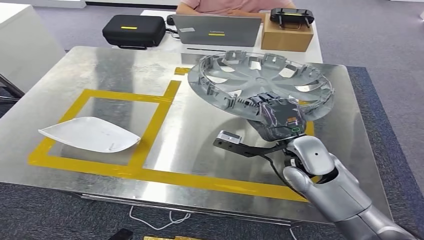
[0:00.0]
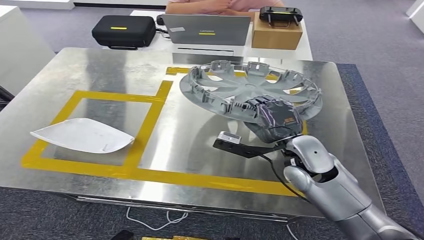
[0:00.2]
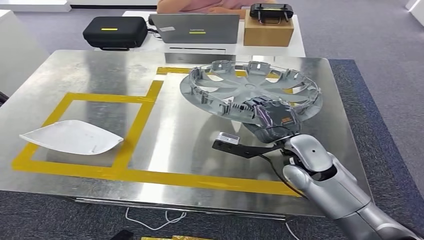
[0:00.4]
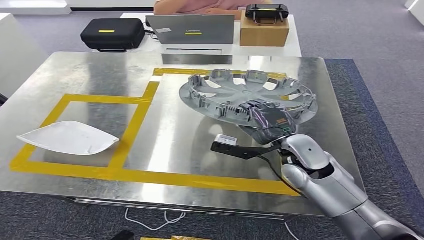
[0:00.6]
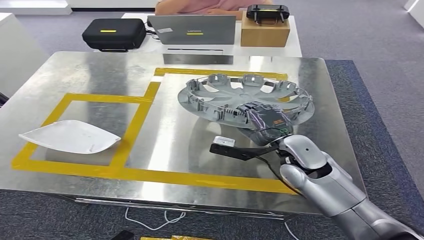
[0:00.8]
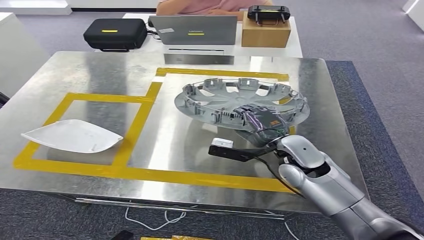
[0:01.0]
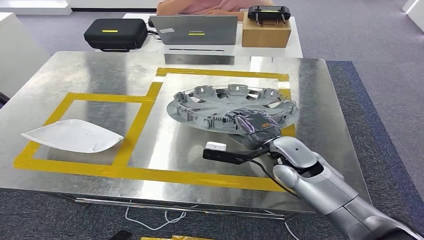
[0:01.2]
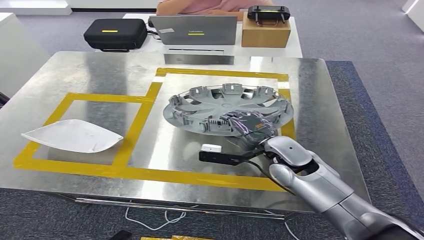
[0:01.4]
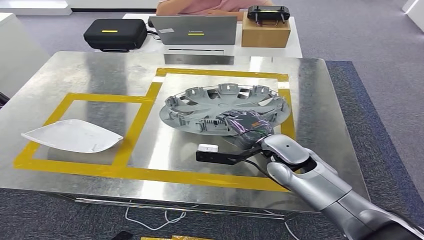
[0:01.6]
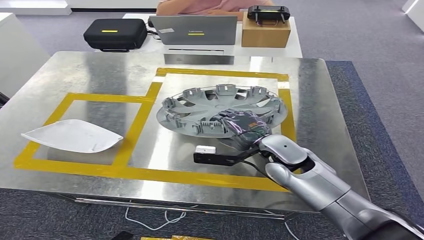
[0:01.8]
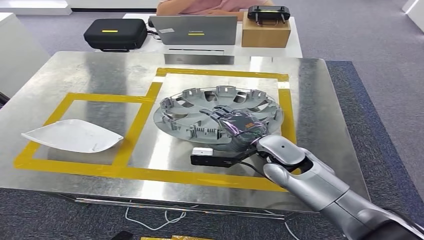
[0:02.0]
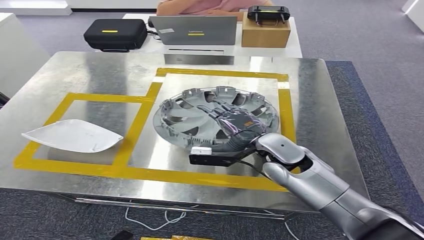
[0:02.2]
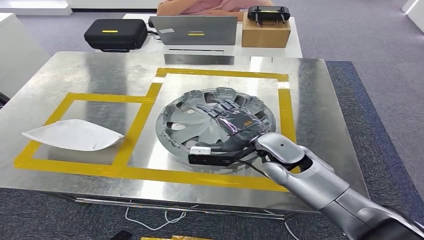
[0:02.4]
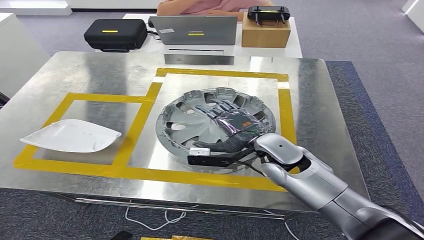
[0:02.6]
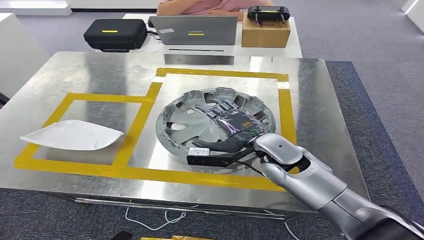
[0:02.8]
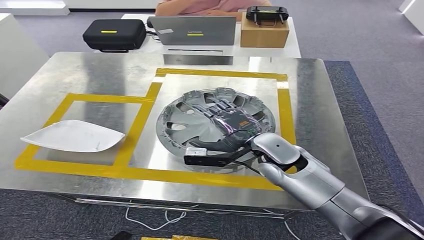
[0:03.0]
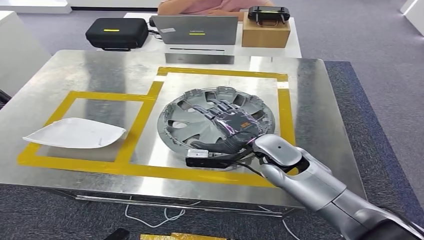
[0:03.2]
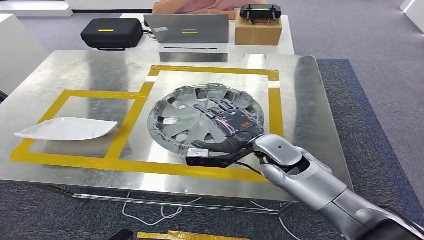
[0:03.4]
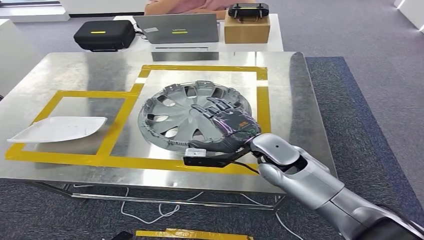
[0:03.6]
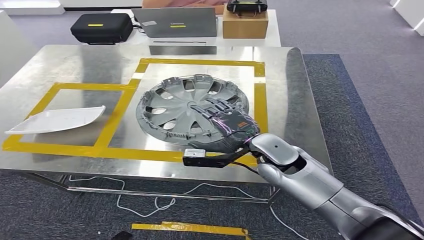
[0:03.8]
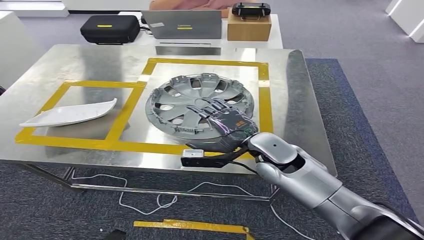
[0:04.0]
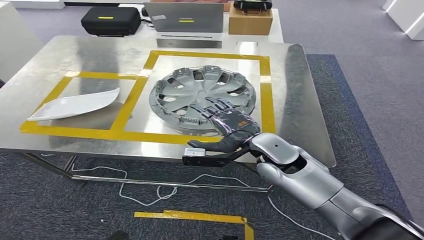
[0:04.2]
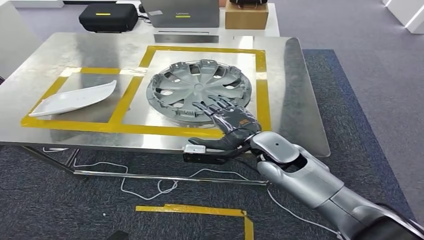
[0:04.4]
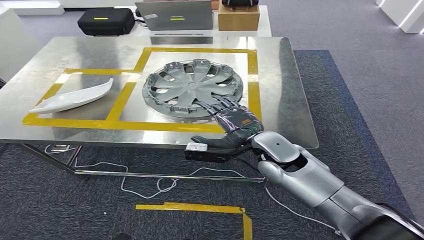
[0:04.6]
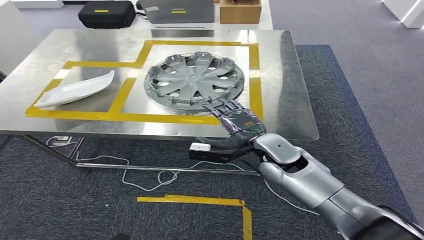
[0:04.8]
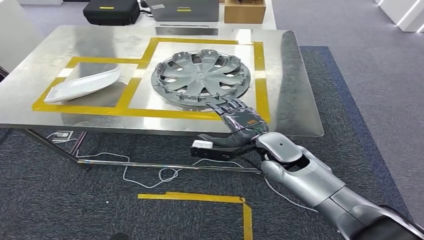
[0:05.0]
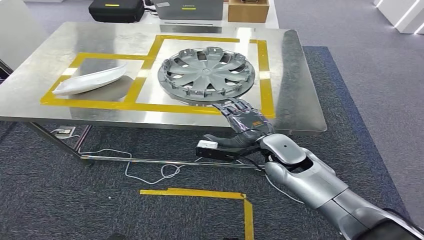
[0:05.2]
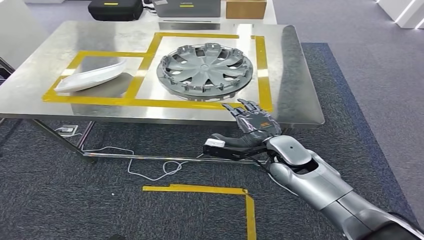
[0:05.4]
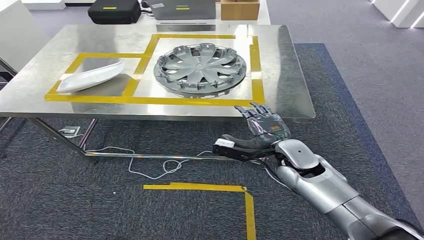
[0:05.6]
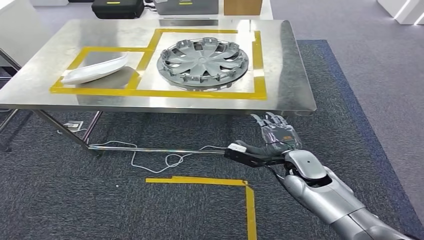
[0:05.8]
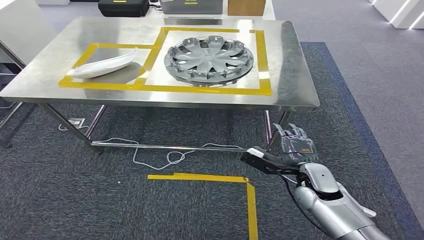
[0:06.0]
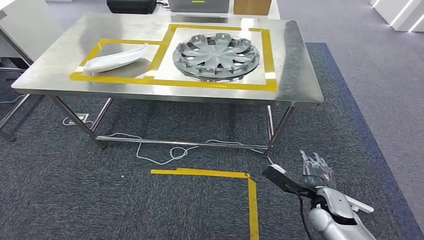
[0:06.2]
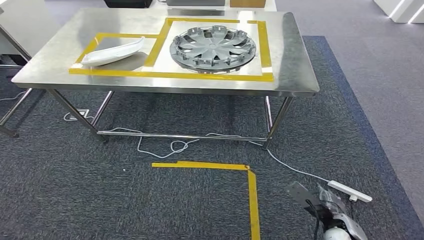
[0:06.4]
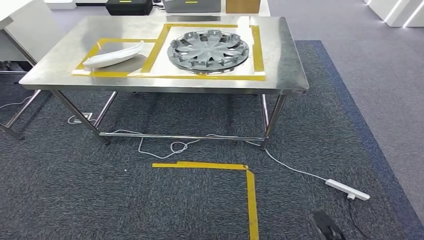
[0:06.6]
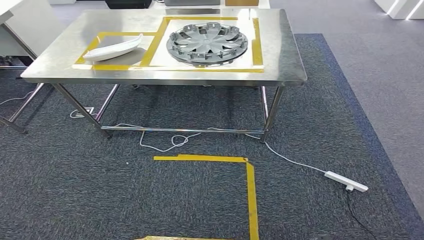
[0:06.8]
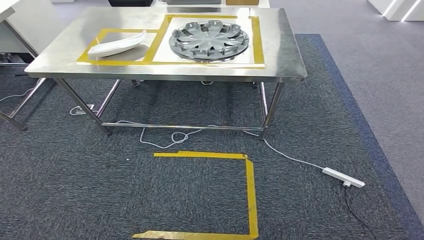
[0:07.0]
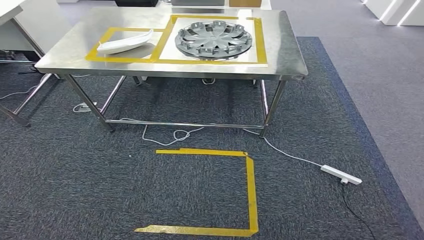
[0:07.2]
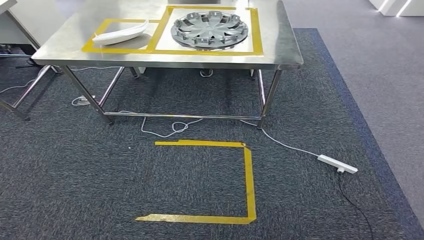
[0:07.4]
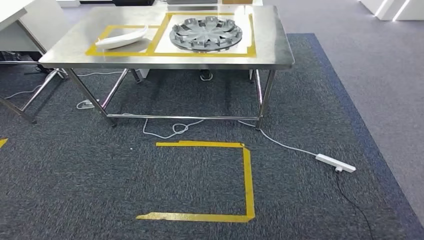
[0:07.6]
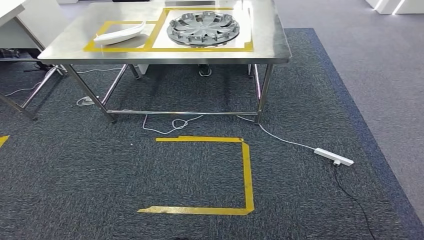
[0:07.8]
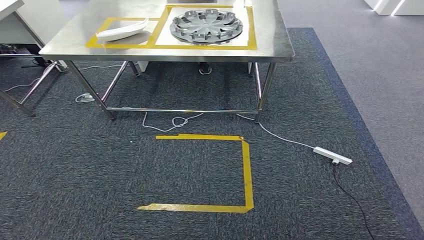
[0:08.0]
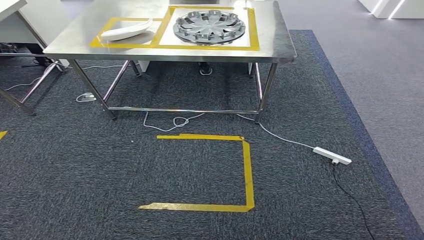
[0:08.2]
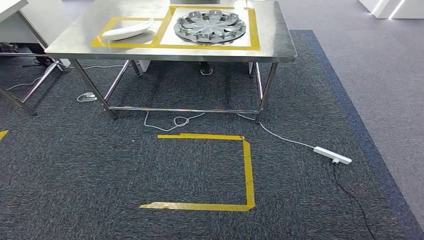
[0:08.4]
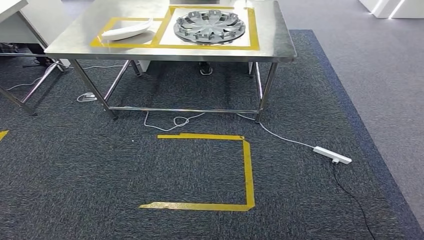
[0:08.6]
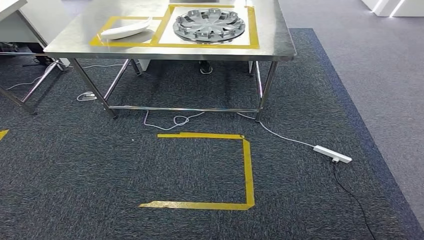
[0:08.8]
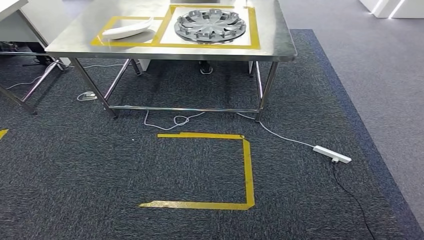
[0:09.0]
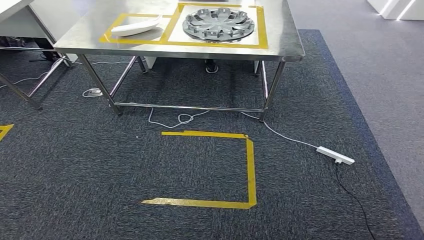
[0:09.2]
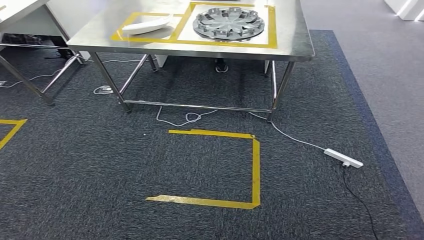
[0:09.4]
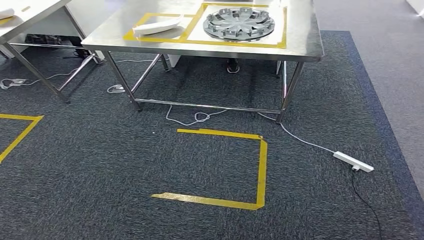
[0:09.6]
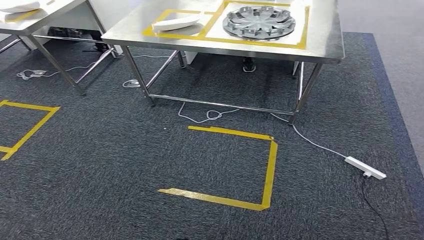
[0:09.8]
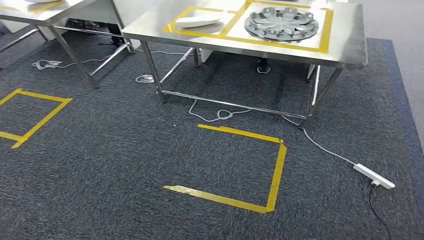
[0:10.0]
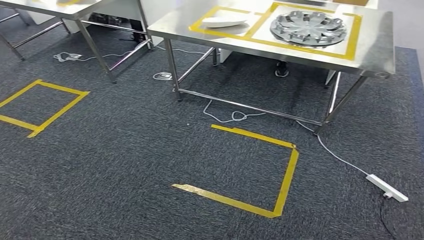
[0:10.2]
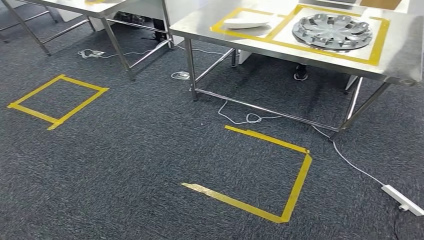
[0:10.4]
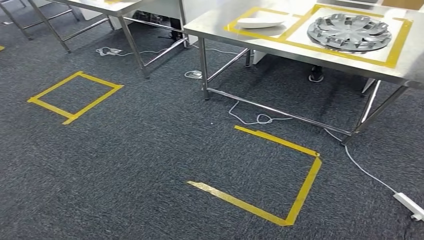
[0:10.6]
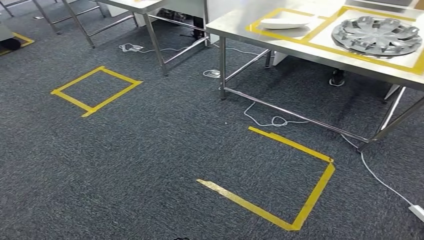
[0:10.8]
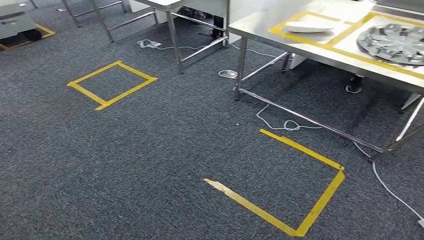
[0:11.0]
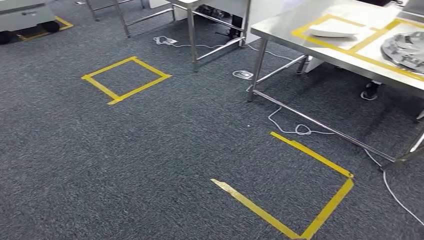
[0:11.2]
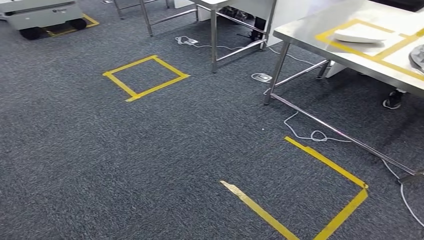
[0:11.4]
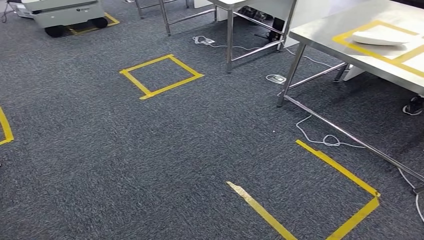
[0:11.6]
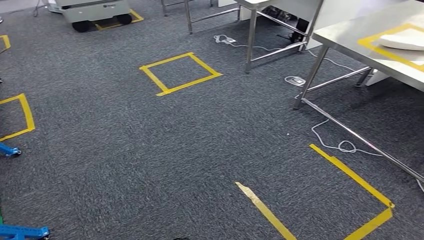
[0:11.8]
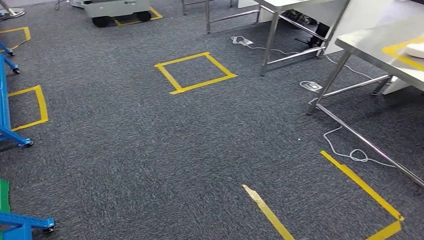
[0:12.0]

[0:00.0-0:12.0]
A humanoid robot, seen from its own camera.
Step, 0:00.0 to 0:07.6: Insert the small parts into the corresponding holes on the workbench.
0:01.6 to 0:03.0: The hands move only a little.

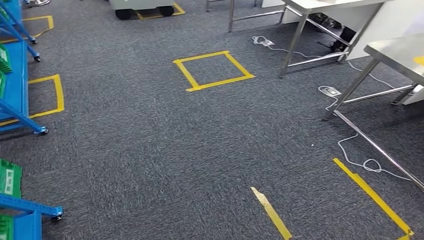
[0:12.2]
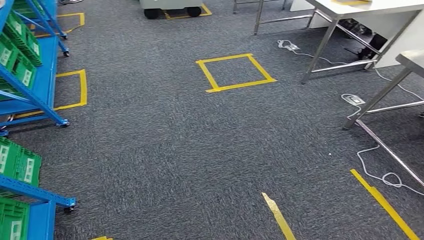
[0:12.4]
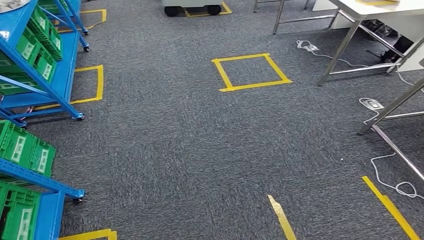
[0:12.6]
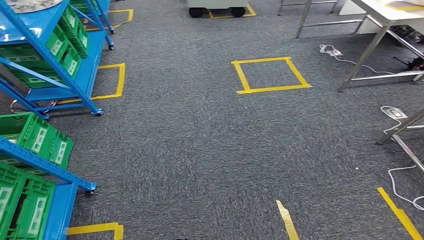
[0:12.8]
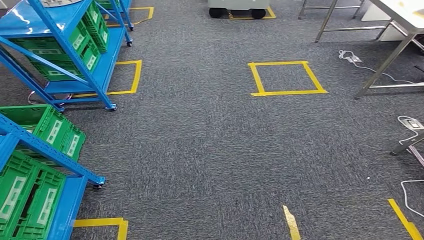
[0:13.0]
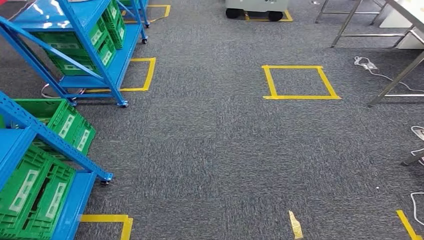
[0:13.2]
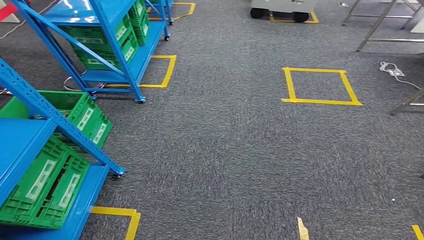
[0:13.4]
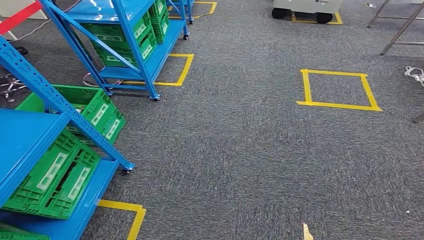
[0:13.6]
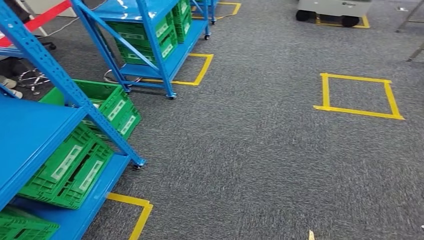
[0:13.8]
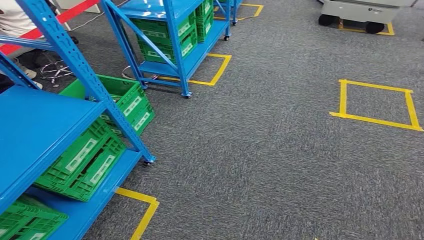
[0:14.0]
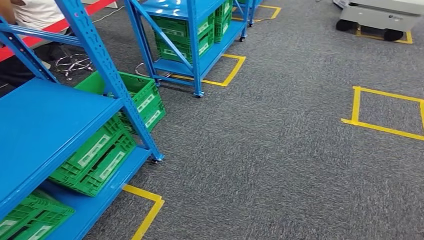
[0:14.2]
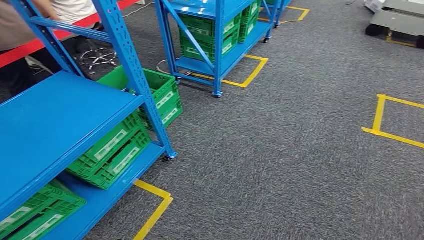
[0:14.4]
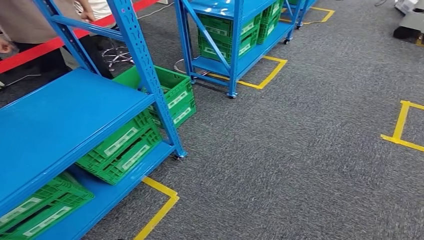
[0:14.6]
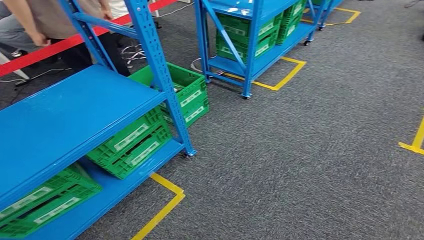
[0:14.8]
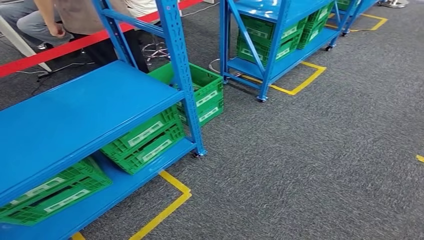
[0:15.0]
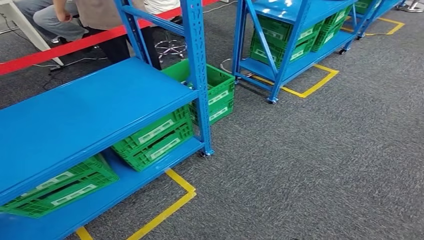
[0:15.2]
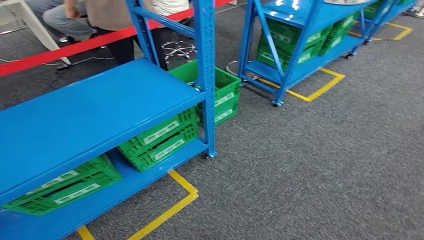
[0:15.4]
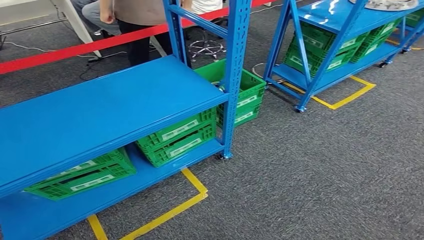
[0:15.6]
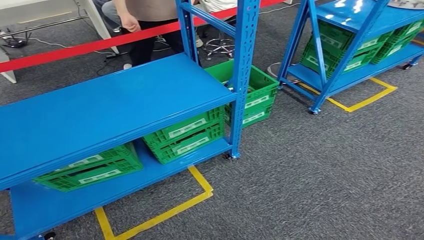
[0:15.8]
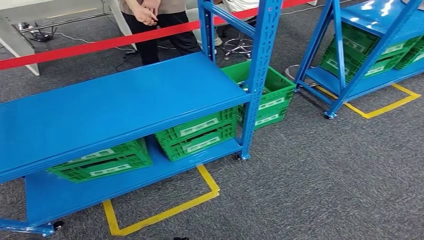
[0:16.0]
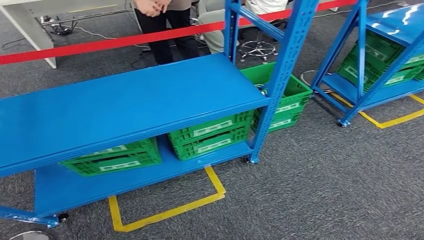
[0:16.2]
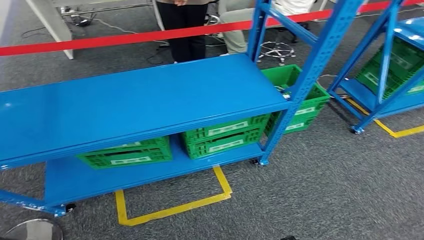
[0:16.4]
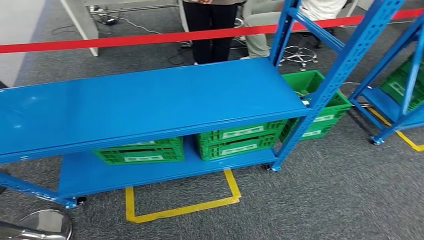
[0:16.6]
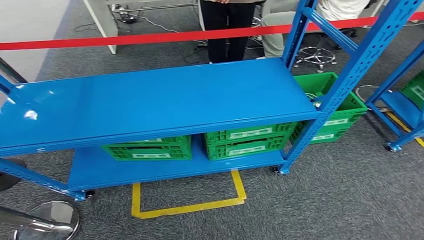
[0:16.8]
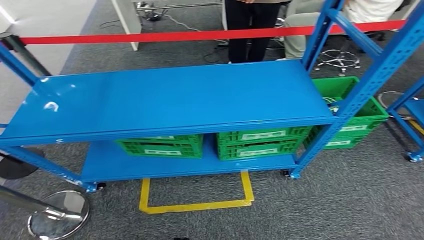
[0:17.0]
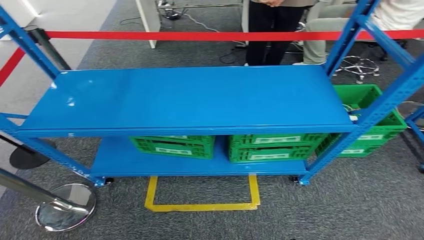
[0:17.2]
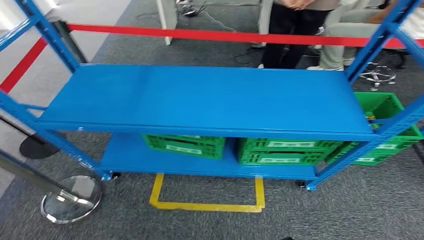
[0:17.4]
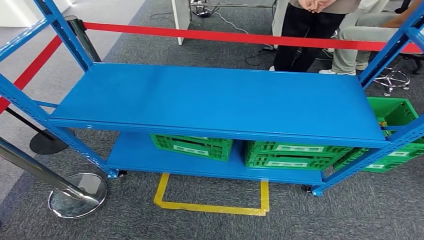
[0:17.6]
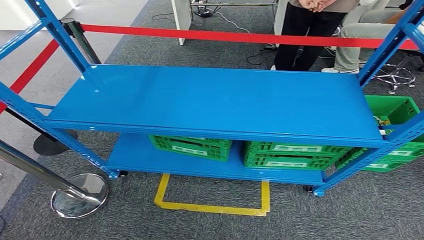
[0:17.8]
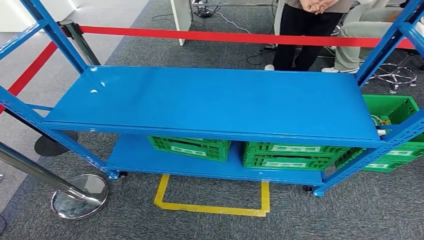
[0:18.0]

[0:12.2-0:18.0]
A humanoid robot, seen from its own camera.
Step, 0:12.2 to 0:18.0: Move to the initial position at the workbench.
